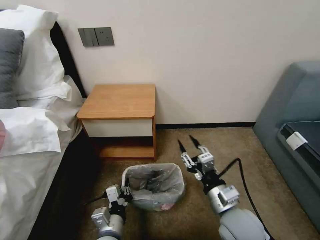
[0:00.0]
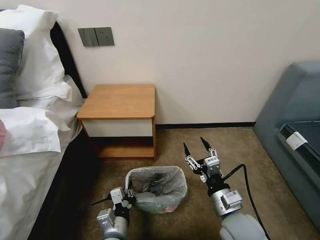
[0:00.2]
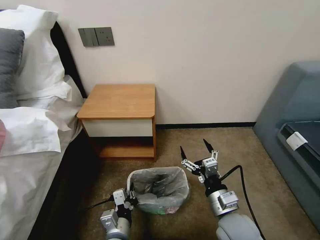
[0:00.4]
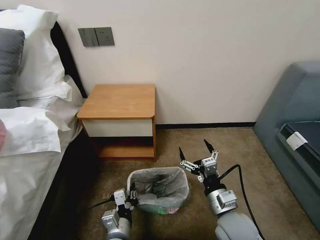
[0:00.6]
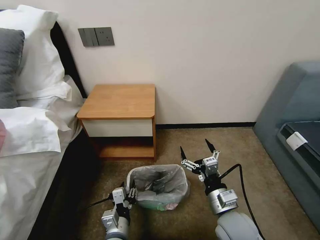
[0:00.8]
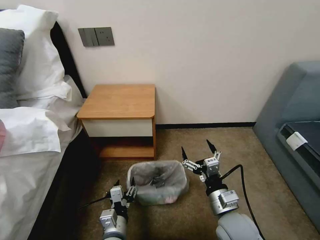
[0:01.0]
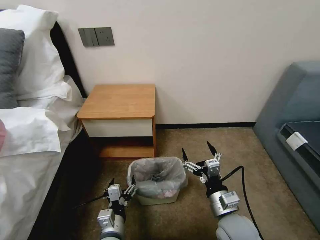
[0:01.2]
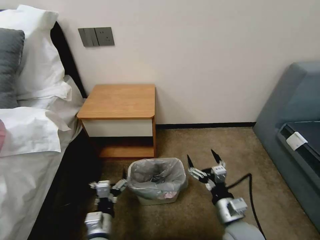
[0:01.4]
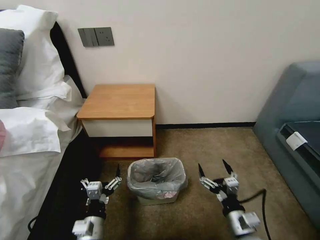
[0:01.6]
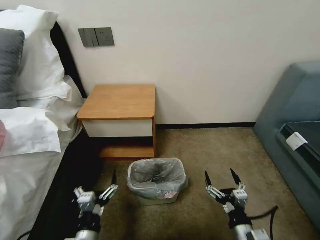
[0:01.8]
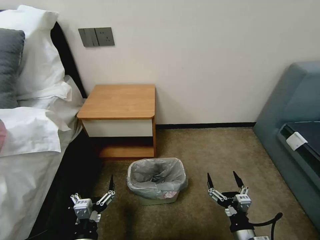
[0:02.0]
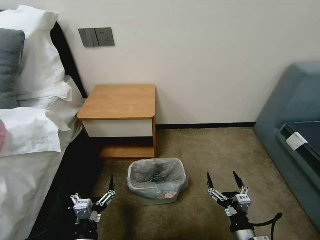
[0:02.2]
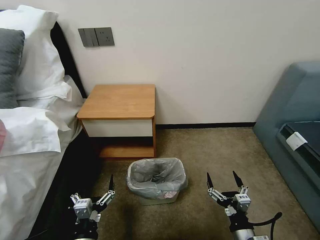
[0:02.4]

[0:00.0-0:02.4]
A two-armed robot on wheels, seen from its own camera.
Task of the whole recording: Pick up the garbage bag from the table and place it over the trash can.
0:00.0 to 0:01.2: The right gripper opens. Meanwhile the left gripper opens up.
0:01.2 to 0:02.4: The left gripper heads backward and to the left, covering approximately 10 cm, while the right gripper is displaced backward, downward and to the right by roughly 10 cm.

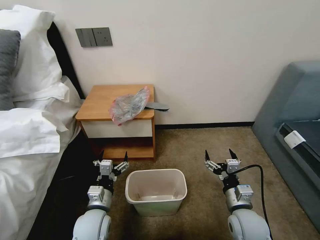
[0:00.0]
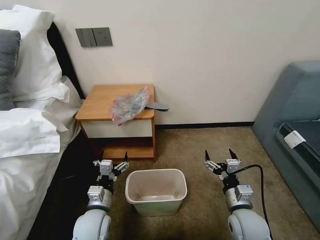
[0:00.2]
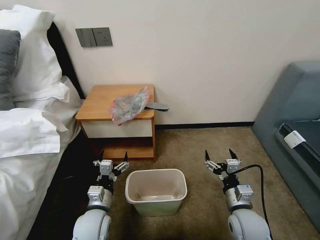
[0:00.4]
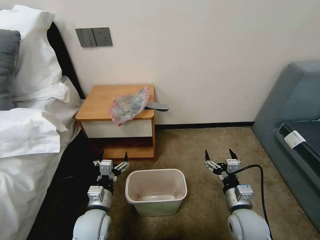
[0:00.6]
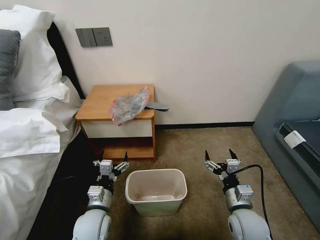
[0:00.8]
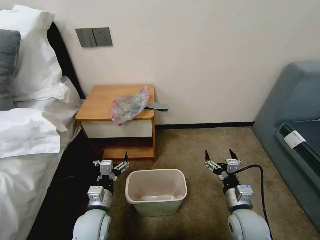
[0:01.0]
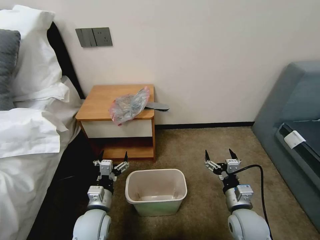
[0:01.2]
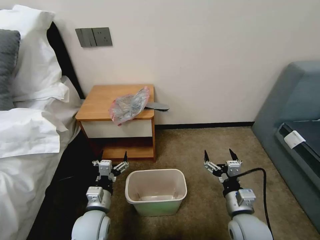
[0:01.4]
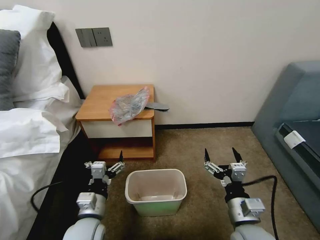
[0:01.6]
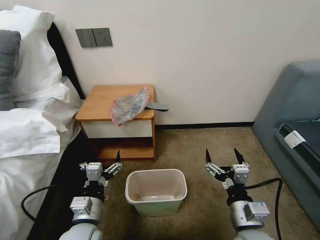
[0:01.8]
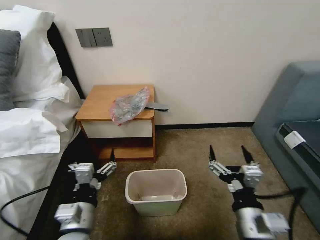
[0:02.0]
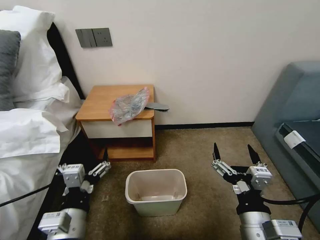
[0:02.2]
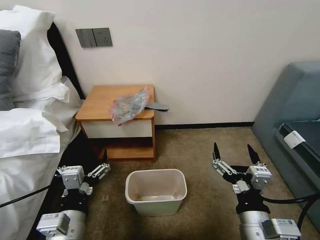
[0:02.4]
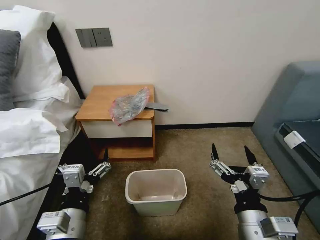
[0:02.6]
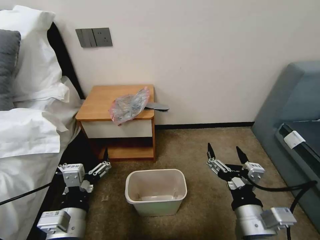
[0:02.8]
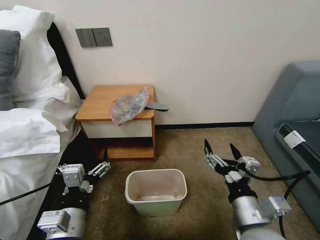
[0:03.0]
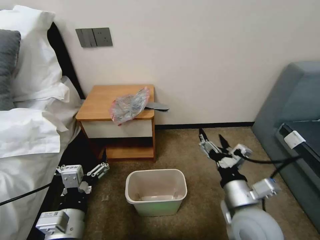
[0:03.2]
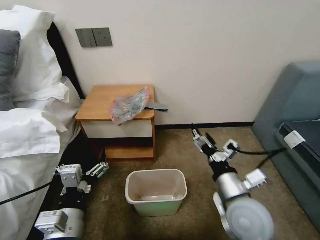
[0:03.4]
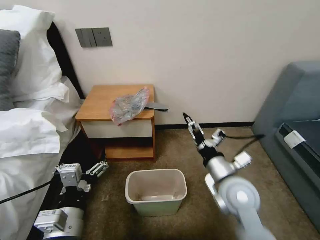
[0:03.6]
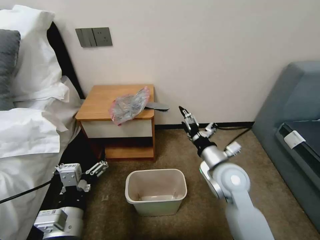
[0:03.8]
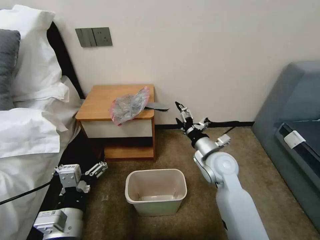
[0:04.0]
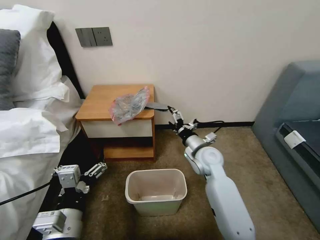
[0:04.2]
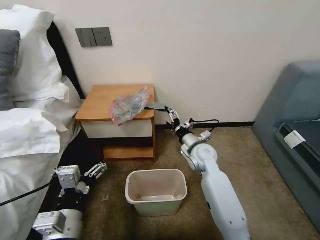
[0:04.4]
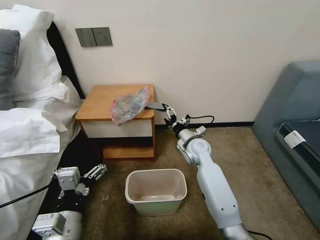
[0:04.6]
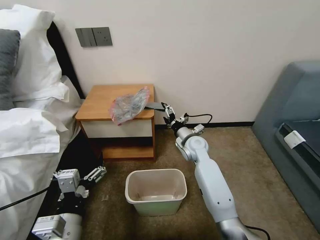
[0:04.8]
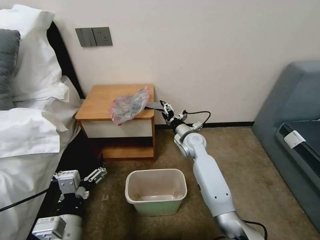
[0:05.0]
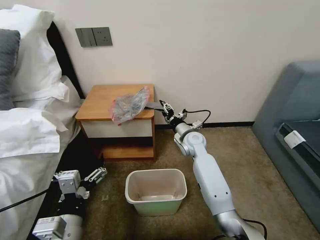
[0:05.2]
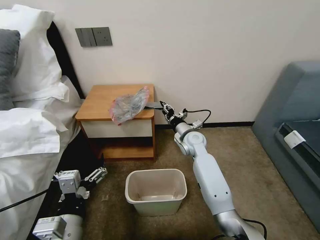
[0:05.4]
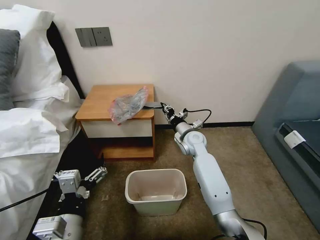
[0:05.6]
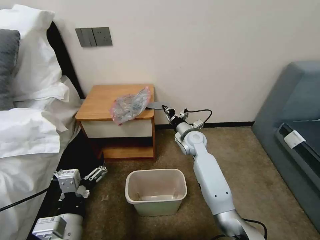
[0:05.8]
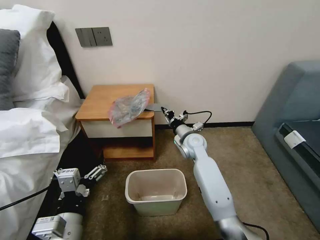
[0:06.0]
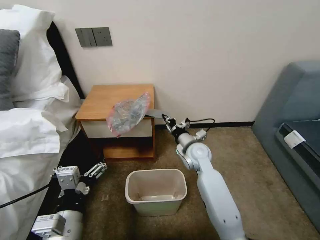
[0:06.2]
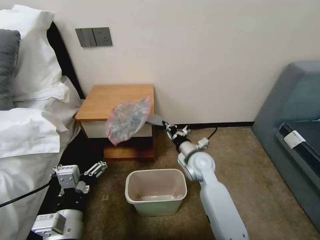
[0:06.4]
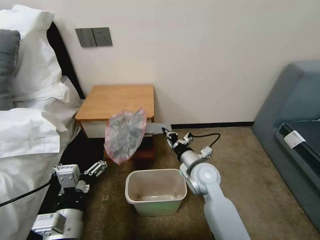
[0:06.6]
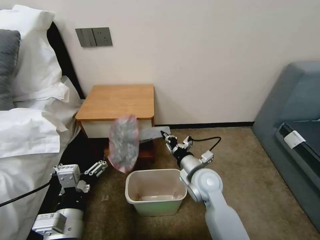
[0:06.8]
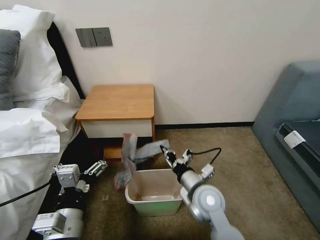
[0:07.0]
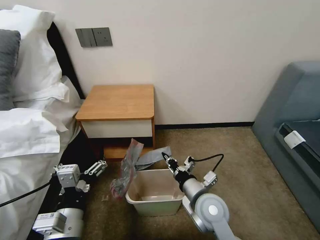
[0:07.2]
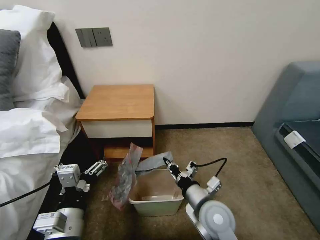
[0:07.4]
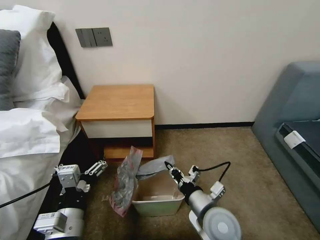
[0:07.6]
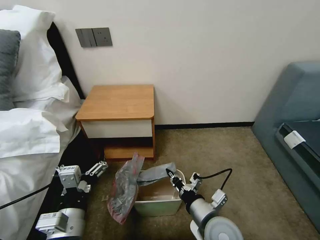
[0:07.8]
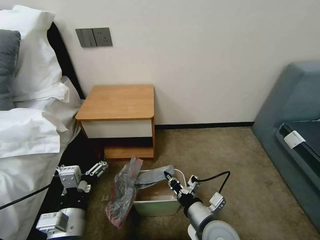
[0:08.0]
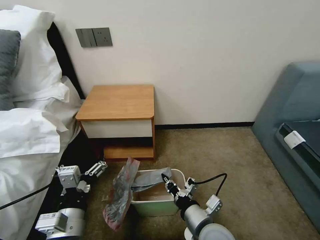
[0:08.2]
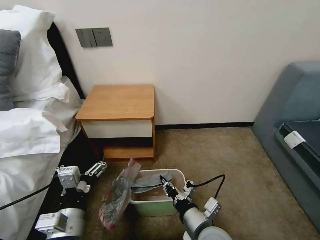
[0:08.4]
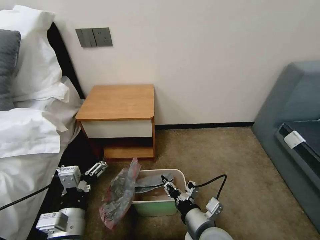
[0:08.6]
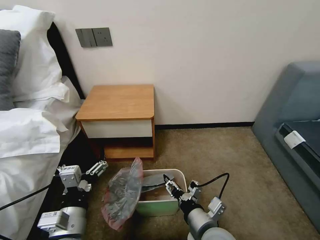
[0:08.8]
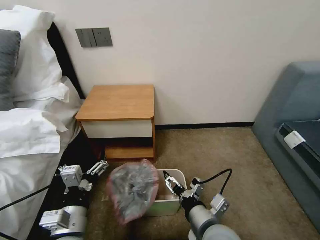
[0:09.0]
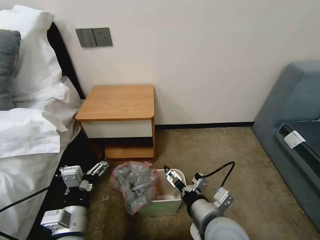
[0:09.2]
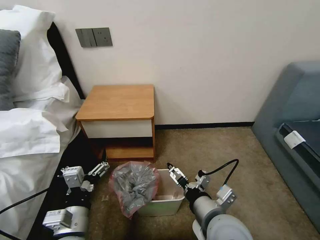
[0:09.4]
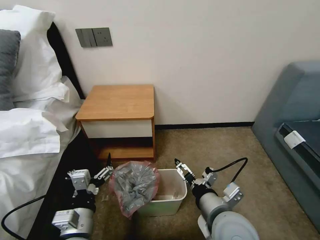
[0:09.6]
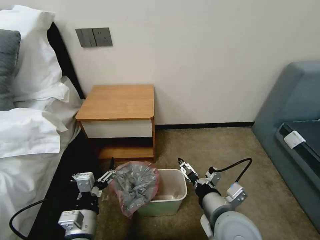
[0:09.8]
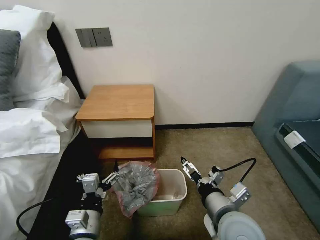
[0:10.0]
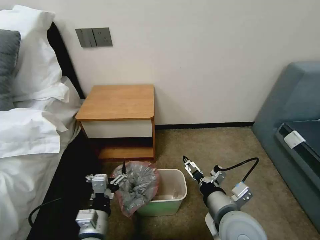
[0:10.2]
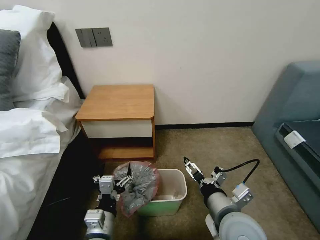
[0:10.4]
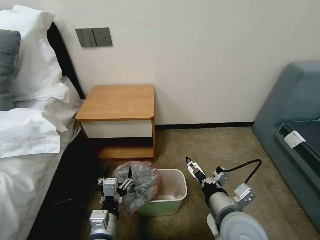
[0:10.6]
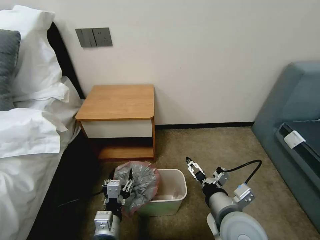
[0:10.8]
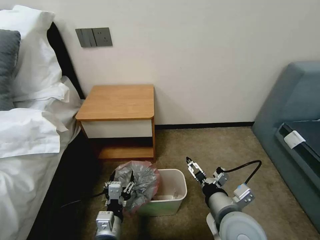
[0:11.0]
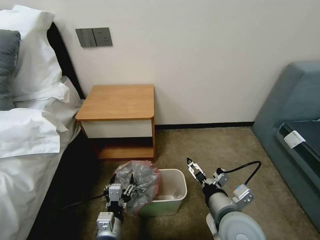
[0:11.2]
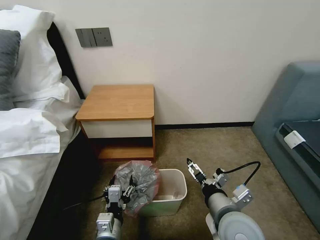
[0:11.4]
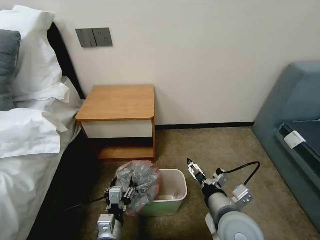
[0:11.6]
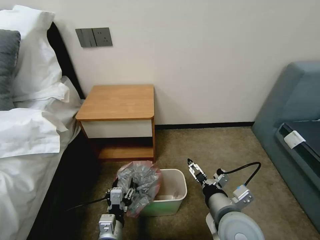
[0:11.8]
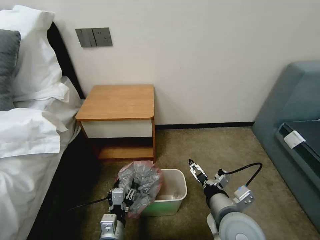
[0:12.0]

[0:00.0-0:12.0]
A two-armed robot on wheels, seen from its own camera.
Task of the whole recording: Pick up the garbage bag from the table and place it over the trash can.
0:01.6 to 0:03.0: The left gripper is displaced upward and backward by approximately 10 cm; the right gripper moves upward, roughly 5 cm.
0:03.0 to 0:04.4: The right gripper goes approximately 25 cm forward.
0:04.4 to 0:06.0: The right gripper ends up some 5 cm from where it was, and closes.
0:06.0 to 0:07.6: The right gripper goes about 25 cm backward.
0:07.6 to 0:09.0: The right gripper moves roughly 5 cm, and opens.
0:09.0 to 0:10.4: The right gripper changes place by some 5 cm; the left gripper moves downward, some 5 cm.
0:10.4 to 0:12.0: The left gripper shifts roughly 5 cm downward, and closes.

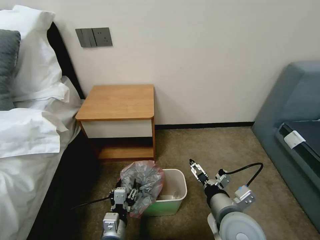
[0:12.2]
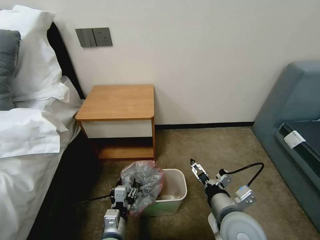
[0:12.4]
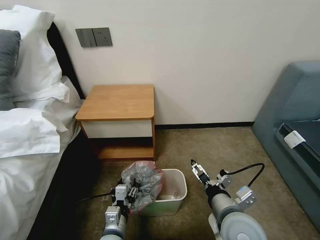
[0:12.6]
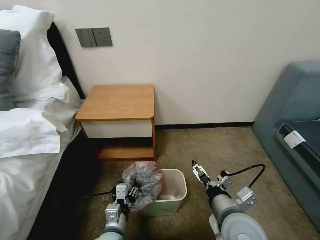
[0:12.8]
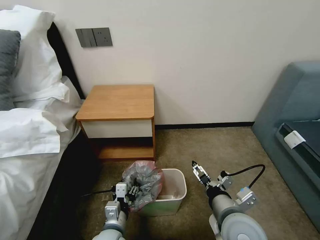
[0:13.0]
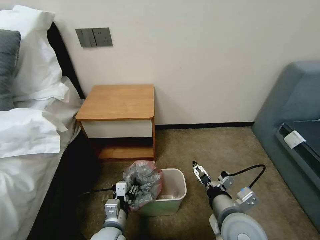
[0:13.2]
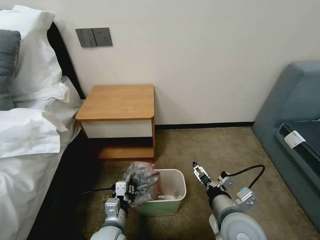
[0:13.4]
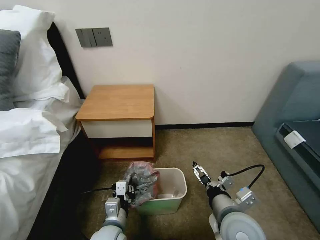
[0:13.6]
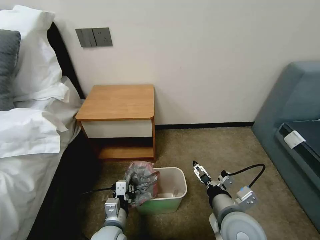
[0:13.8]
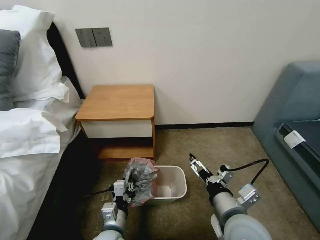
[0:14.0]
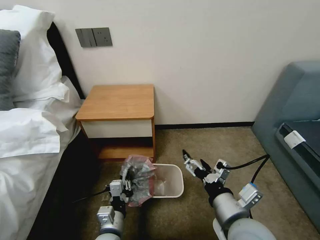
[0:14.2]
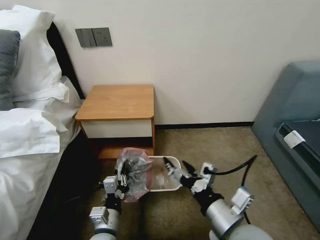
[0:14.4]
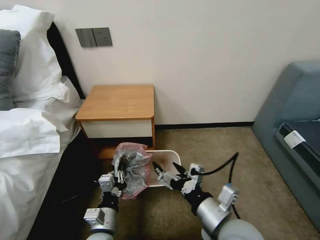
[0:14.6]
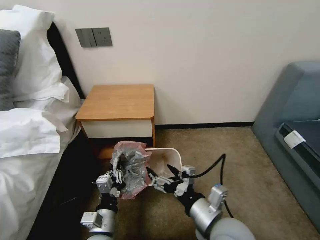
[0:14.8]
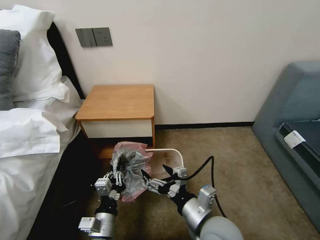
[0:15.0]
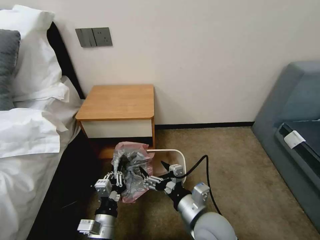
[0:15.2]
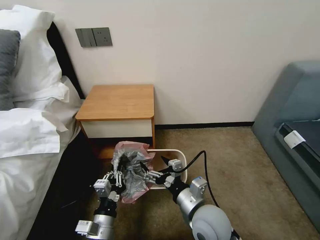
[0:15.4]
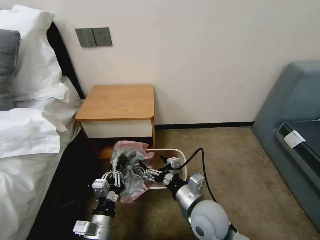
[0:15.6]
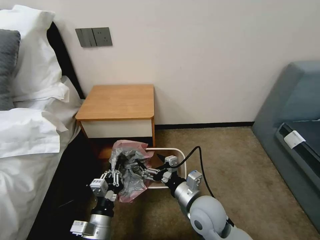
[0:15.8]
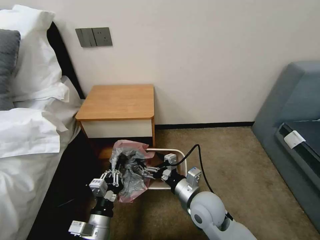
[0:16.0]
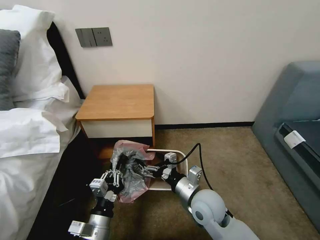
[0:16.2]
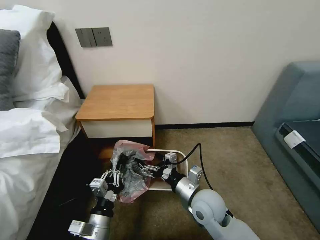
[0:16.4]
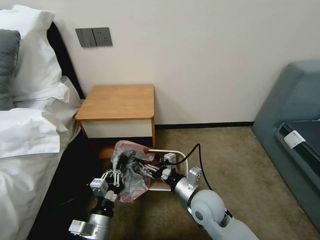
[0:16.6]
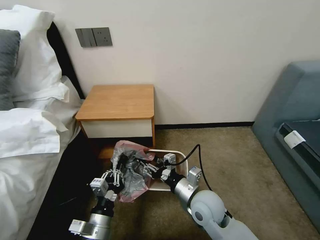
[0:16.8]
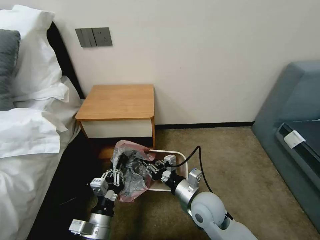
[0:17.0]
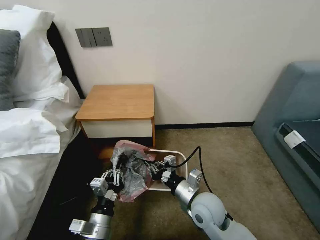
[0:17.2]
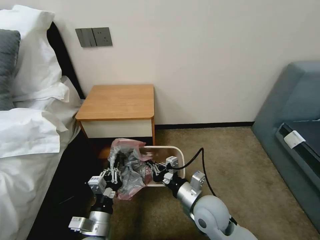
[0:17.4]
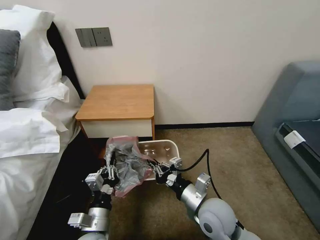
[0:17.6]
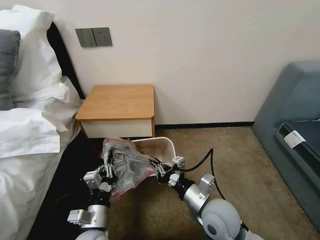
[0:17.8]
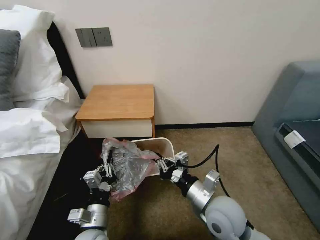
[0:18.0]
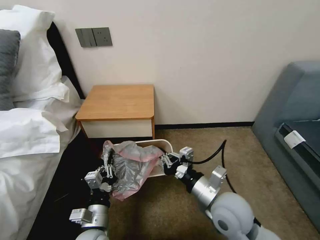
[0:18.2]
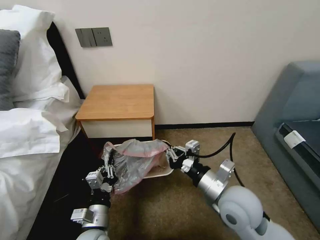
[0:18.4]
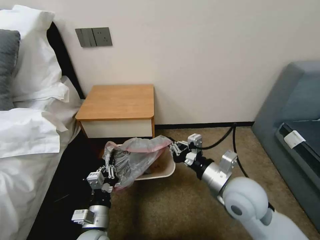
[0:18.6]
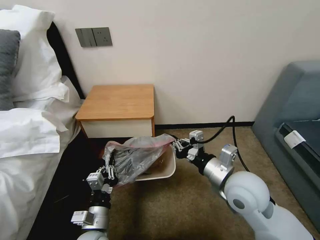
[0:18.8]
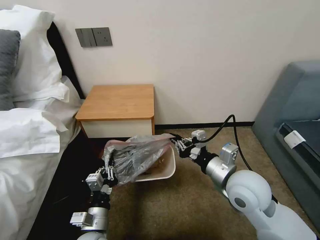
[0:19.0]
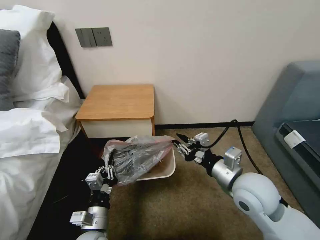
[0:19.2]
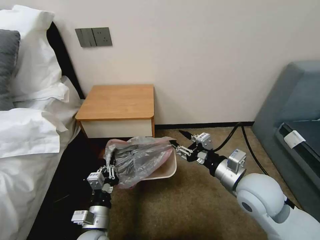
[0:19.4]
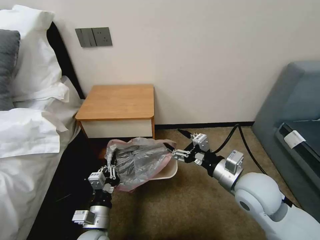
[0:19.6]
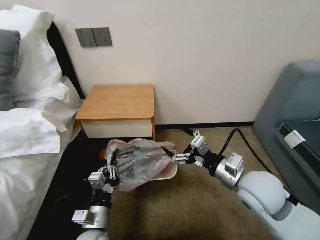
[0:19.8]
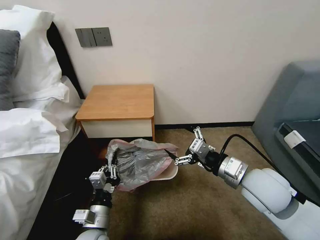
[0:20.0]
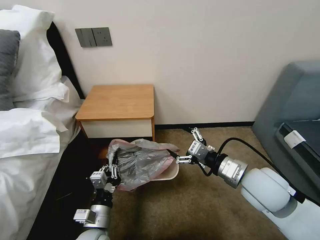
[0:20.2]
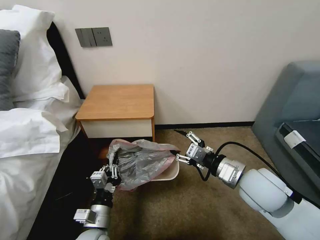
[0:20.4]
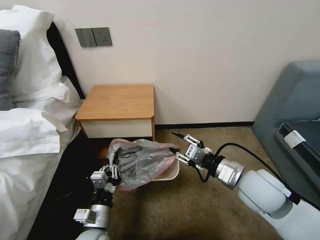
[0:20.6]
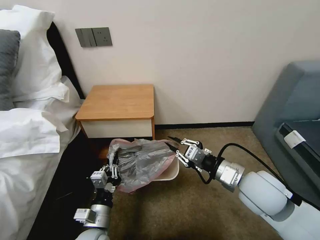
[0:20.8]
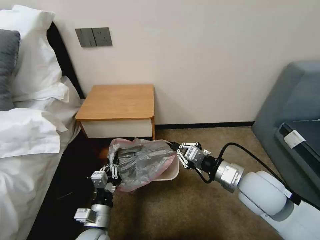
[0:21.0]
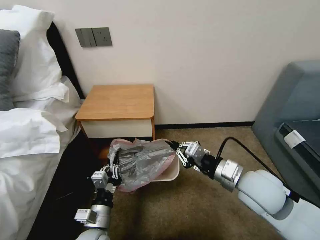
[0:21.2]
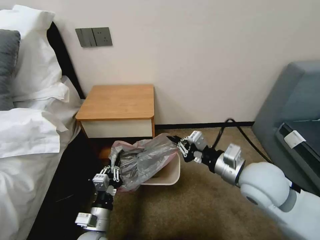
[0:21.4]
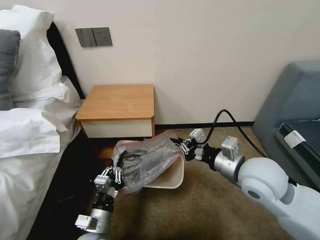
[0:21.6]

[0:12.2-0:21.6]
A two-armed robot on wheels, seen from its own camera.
Task of the whole recording: Pick up the garbage bag from the table and place it over the trash can.
0:12.2 to 0:13.8: The left gripper closes its fingers.
0:13.8 to 0:15.4: The right gripper travels to the left by approximately 5 cm.
0:15.4 to 0:17.0: The right gripper ends up some 5 cm from where it was, and closes up.
0:17.0 to 0:18.4: The right gripper shifts approximately 10 cm upward and to the right.
0:18.4 to 0:20.0: The right gripper moves to the right, approximately 5 cm, and opens.
0:20.0 to 0:21.6: The right gripper closes its fingers.
